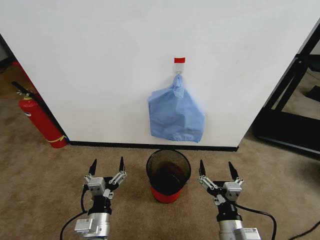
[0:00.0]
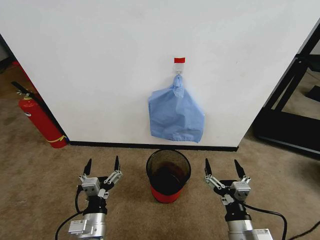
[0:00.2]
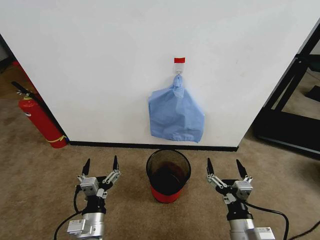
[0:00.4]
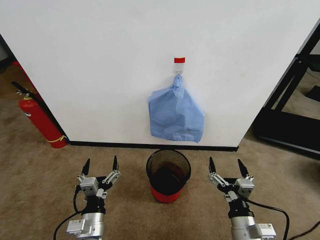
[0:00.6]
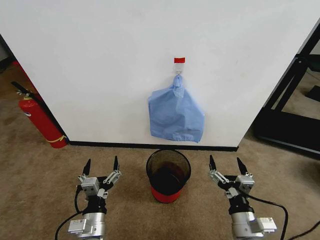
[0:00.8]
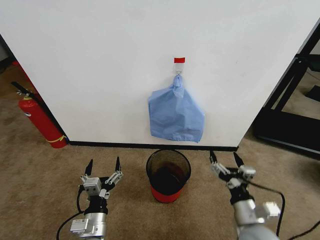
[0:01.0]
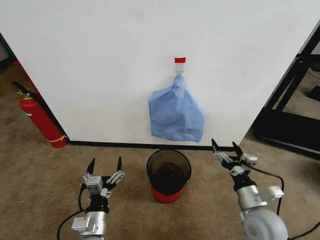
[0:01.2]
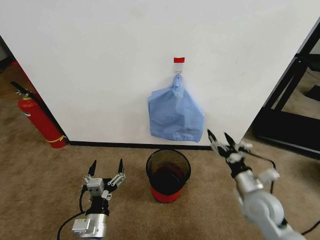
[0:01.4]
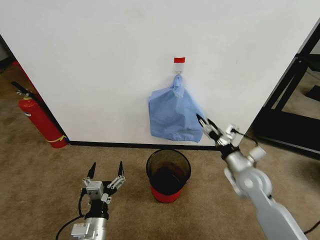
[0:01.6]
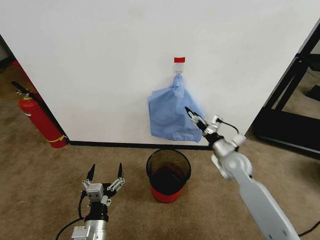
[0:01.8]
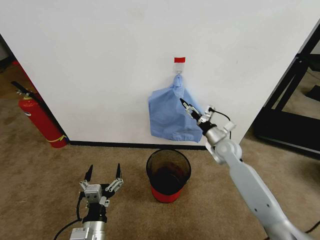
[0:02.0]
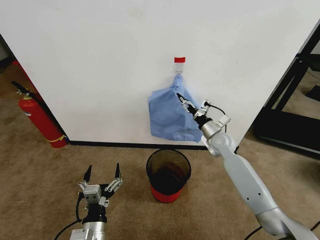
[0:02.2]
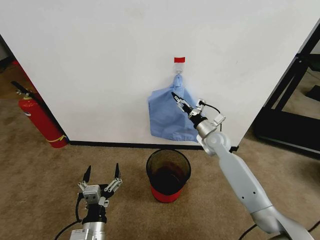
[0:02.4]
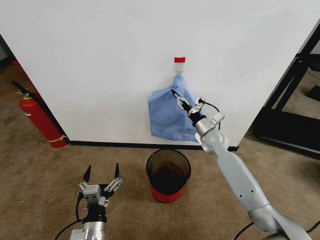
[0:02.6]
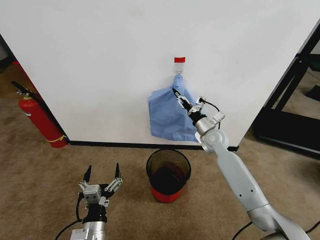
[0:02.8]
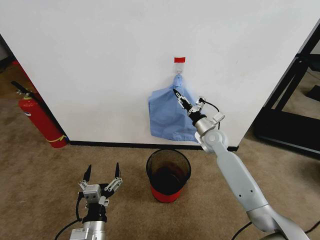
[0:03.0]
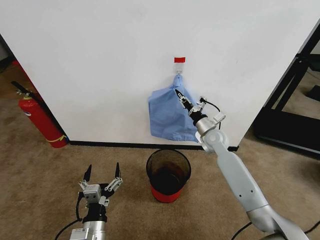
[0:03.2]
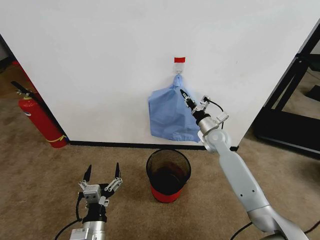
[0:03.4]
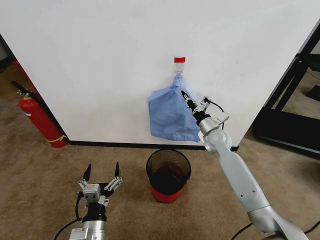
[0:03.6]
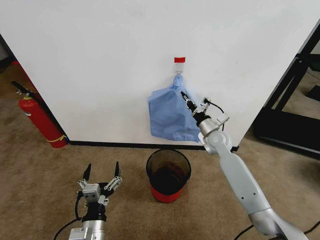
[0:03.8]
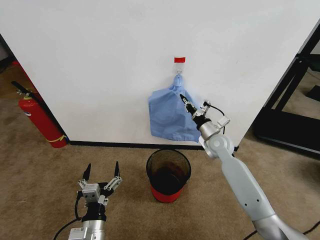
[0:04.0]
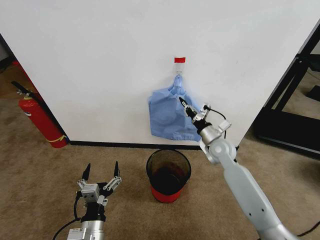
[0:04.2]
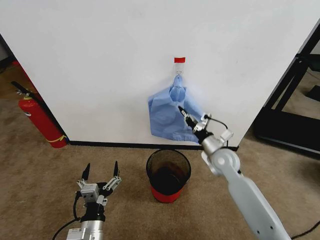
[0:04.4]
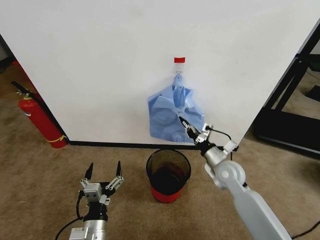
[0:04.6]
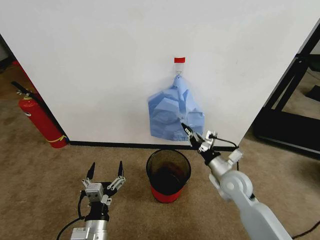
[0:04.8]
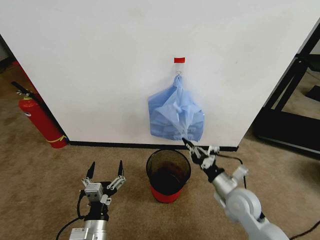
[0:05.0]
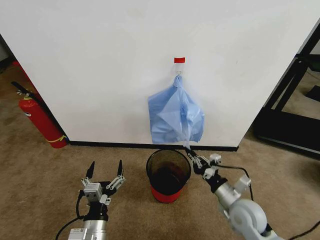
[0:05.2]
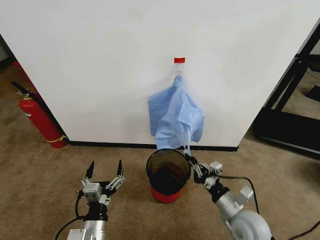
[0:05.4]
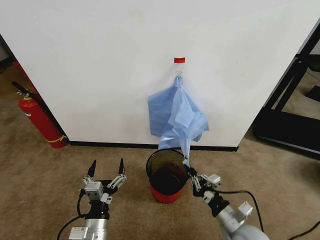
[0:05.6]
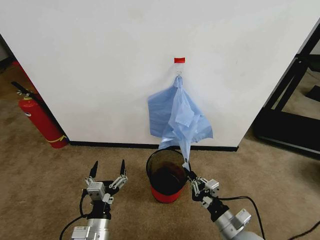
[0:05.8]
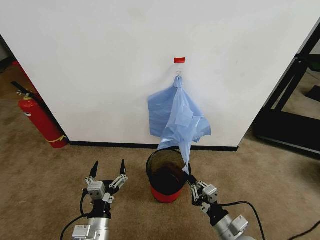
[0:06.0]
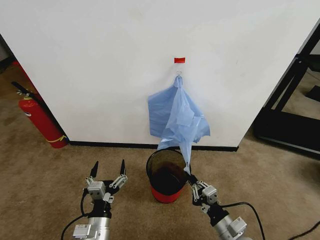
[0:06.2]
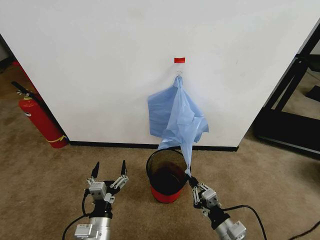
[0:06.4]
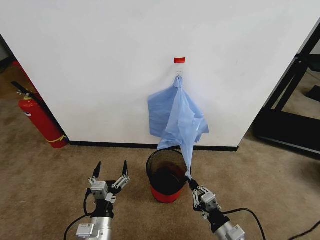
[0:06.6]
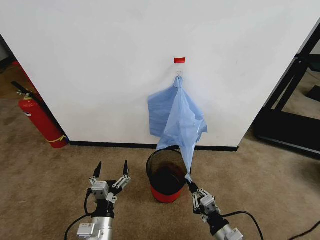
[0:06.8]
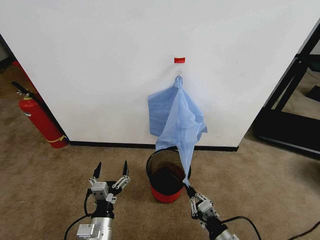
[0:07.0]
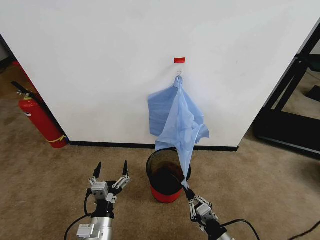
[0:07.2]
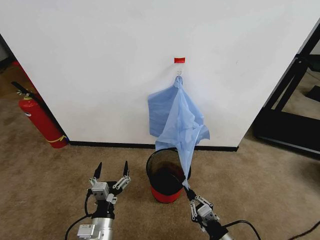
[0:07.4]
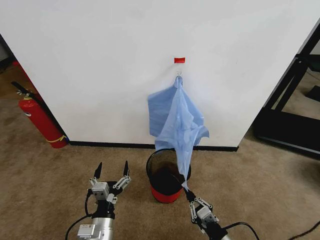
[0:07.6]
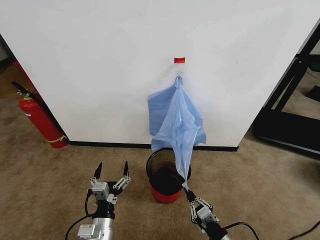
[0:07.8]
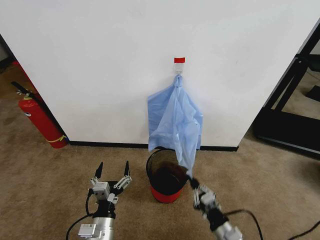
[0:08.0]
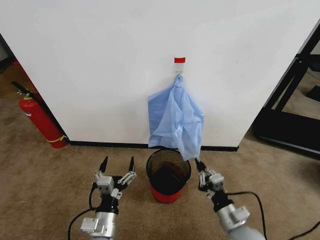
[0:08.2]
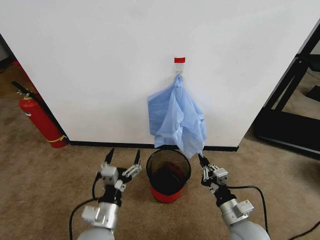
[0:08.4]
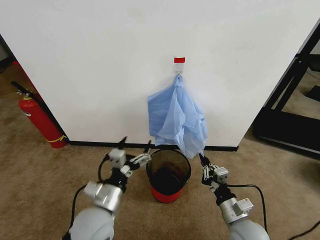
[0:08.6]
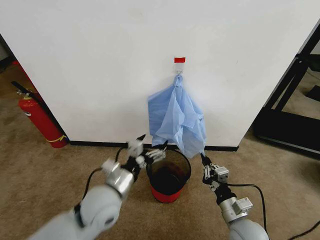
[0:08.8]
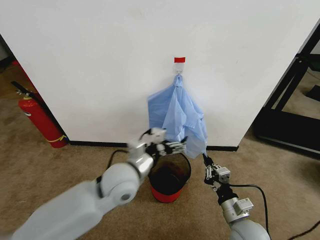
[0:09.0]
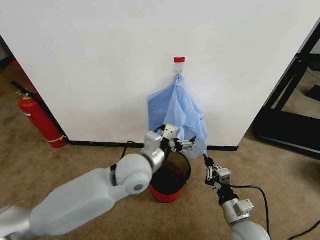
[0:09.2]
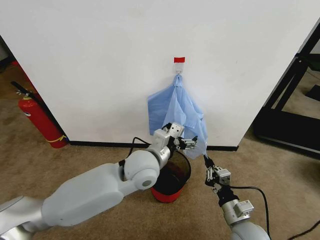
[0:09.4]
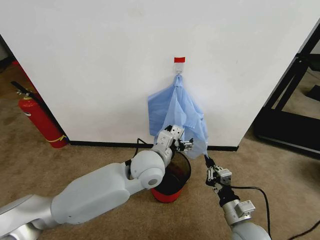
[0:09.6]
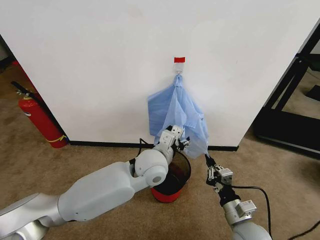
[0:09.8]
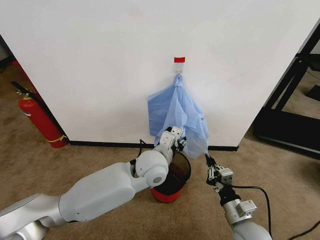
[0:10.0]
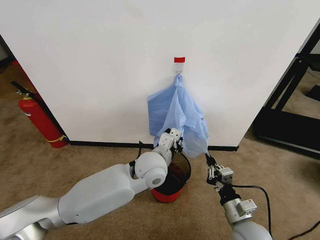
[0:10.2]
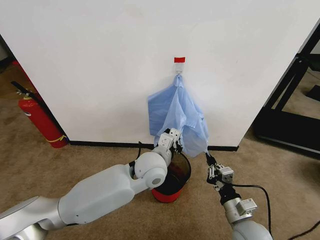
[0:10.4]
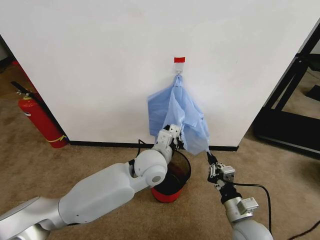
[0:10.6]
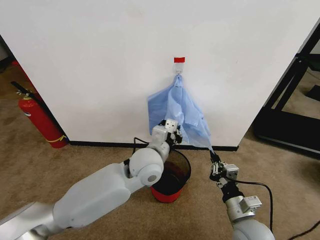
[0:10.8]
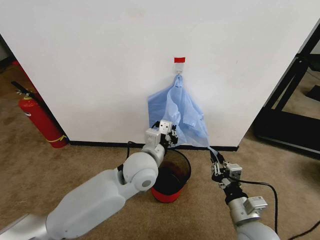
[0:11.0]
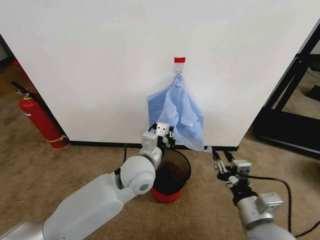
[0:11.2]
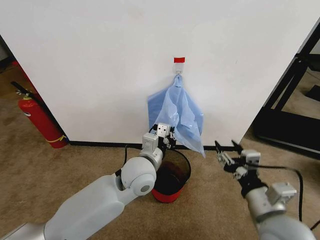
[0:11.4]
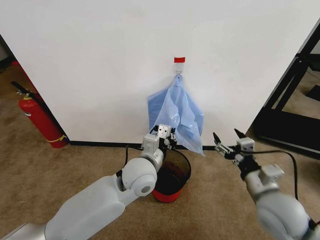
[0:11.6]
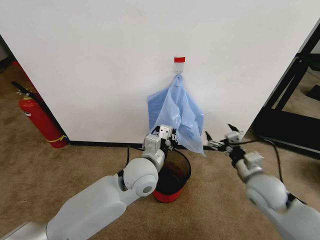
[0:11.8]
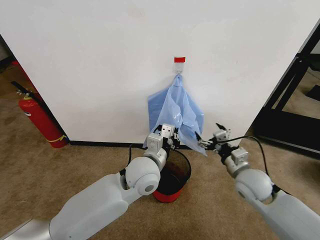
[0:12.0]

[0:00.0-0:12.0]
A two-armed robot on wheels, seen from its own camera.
Task of the whole recording: Pick up the garbage bag from the wall and place it over the trash bin.
0:01.6 to 0:03.0: The right gripper shifts roughly 20 cm forward and to the left, and closes its fingers.
0:03.0 to 0:04.4: The right gripper shifts roughly 10 cm backward, and closes its fingers.
0:04.4 to 0:06.0: The right gripper moves backward, some 25 cm.
0:06.0 to 0:07.6: The right gripper ends up approximately 5 cm from where it was.
0:07.6 to 0:09.0: The right gripper heads forward and upward, covering about 10 cm, while the left gripper is displaced upward and forward by some 20 cm.
0:09.0 to 0:10.4: The left gripper goes roughly 15 cm to the right and forward, and closes up.
0:10.4 to 0:12.0: The right gripper travels forward and upward by roughly 15 cm, and opens up.

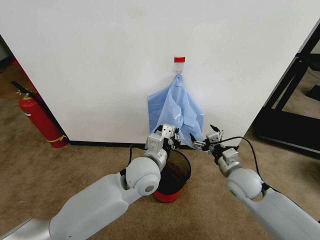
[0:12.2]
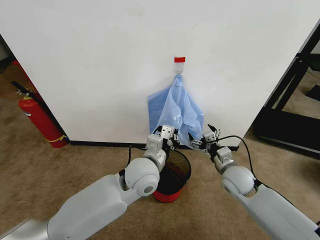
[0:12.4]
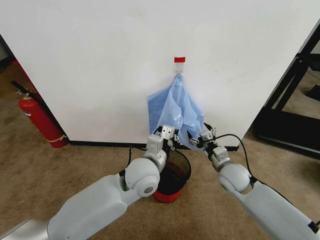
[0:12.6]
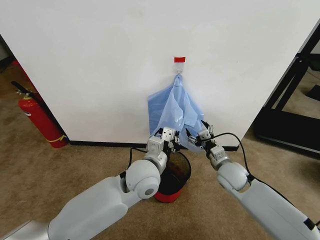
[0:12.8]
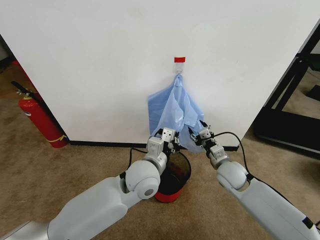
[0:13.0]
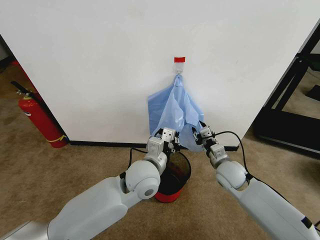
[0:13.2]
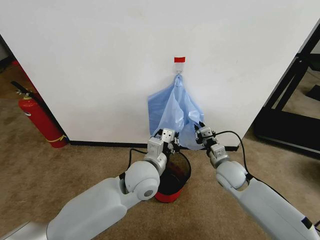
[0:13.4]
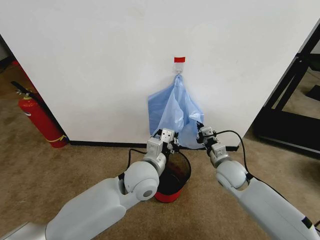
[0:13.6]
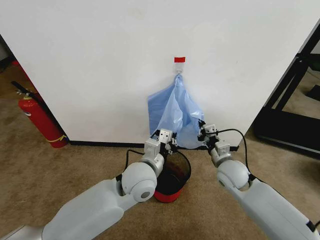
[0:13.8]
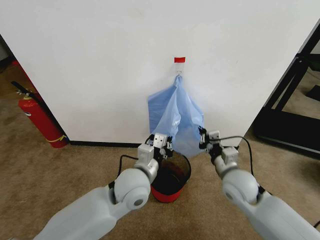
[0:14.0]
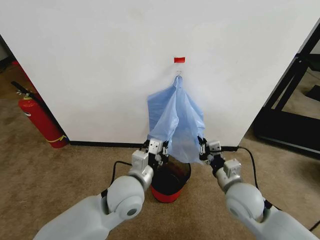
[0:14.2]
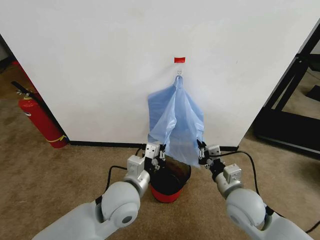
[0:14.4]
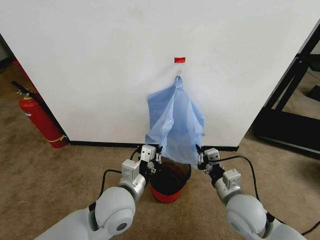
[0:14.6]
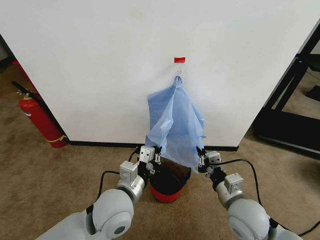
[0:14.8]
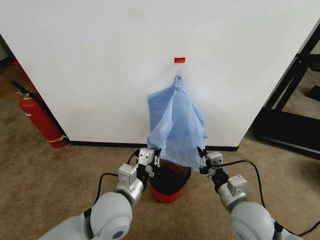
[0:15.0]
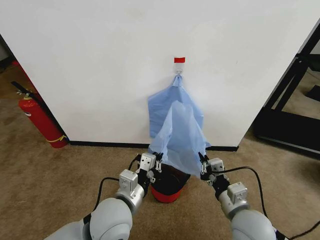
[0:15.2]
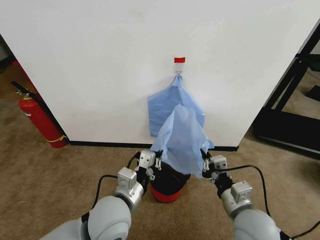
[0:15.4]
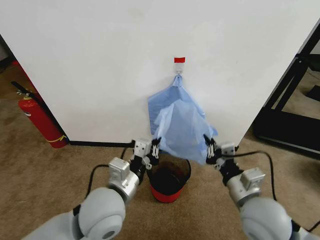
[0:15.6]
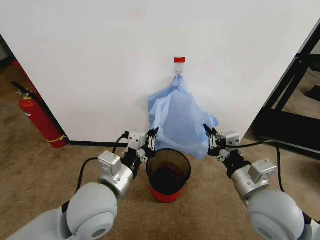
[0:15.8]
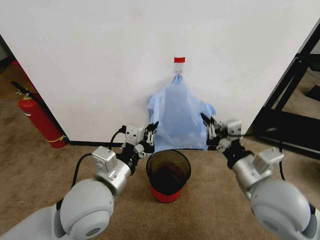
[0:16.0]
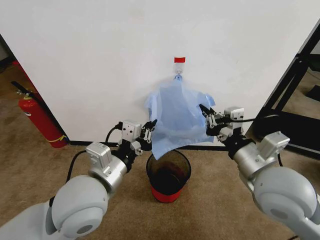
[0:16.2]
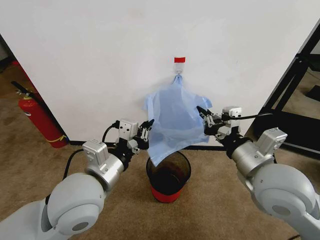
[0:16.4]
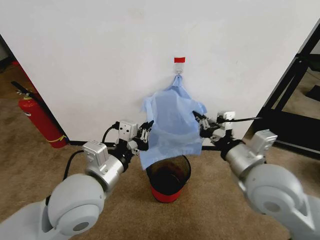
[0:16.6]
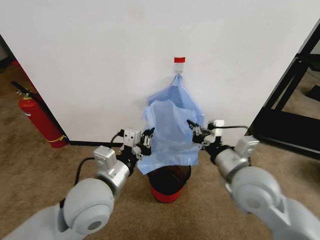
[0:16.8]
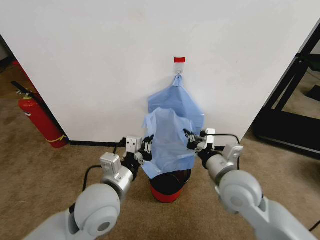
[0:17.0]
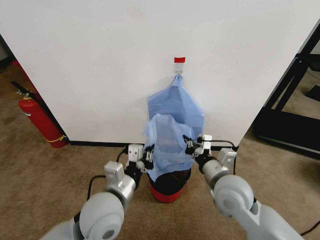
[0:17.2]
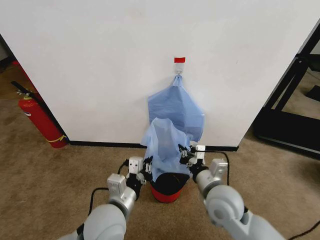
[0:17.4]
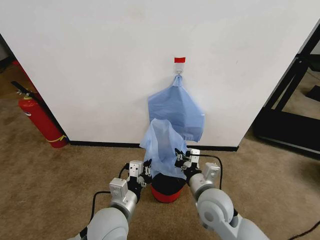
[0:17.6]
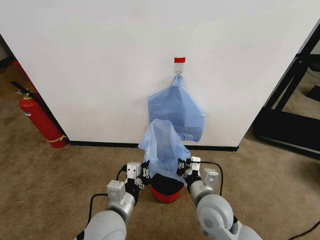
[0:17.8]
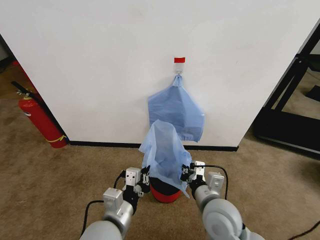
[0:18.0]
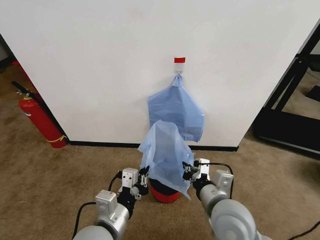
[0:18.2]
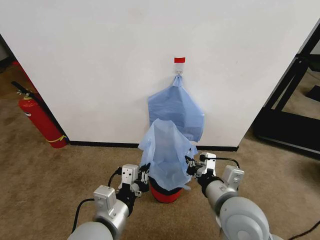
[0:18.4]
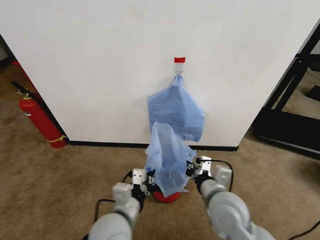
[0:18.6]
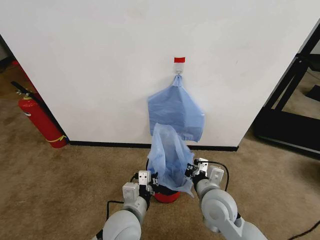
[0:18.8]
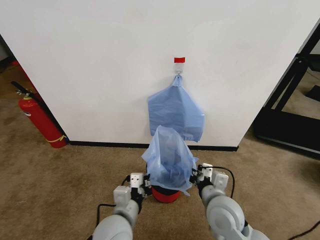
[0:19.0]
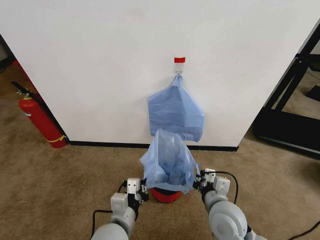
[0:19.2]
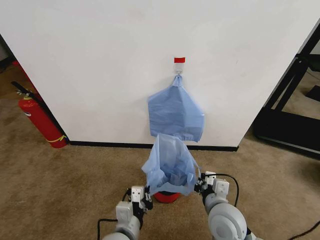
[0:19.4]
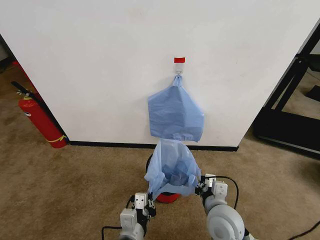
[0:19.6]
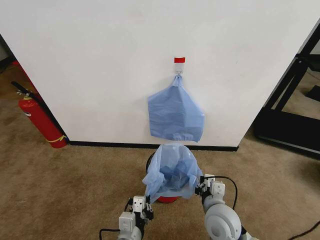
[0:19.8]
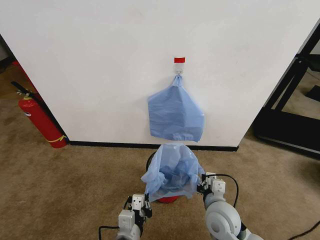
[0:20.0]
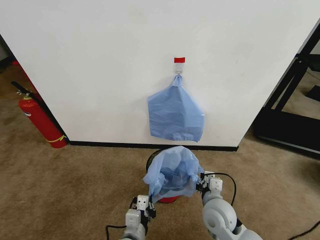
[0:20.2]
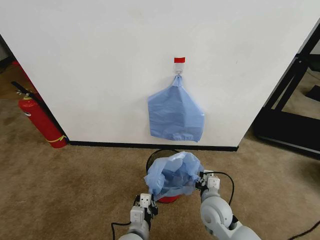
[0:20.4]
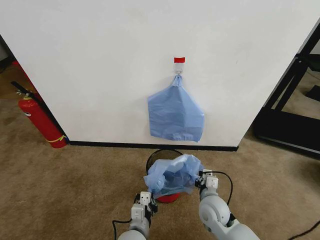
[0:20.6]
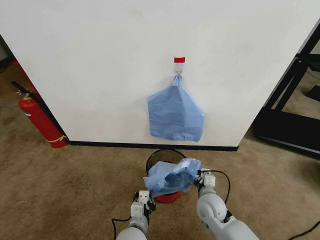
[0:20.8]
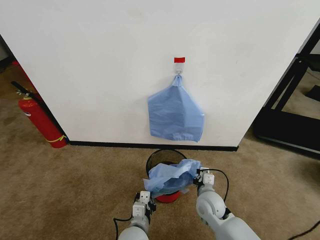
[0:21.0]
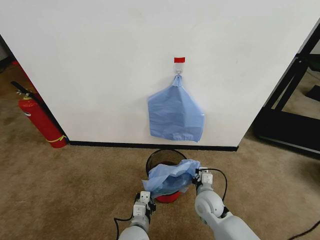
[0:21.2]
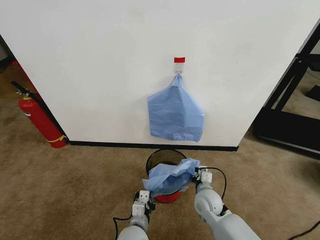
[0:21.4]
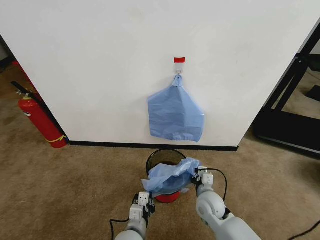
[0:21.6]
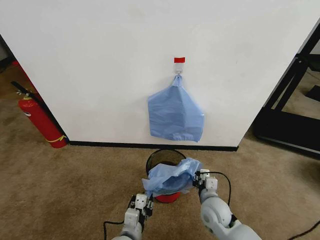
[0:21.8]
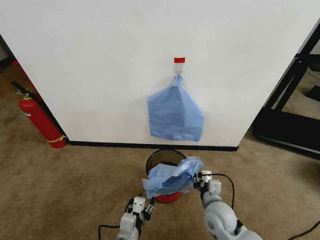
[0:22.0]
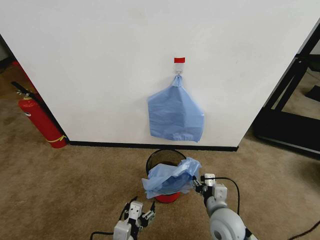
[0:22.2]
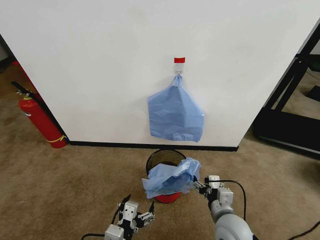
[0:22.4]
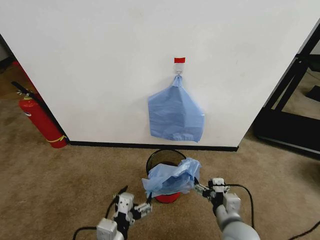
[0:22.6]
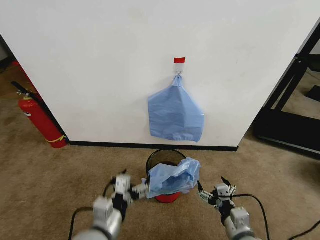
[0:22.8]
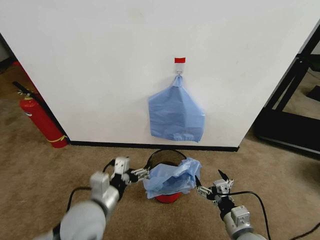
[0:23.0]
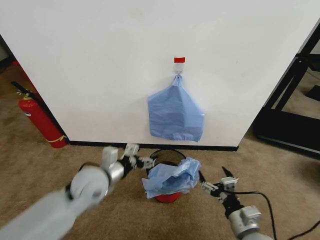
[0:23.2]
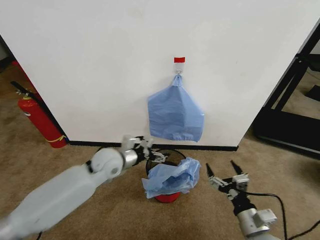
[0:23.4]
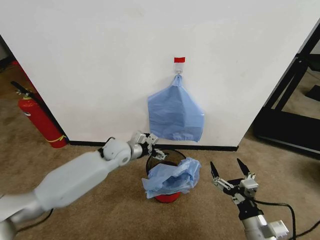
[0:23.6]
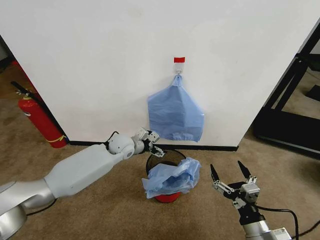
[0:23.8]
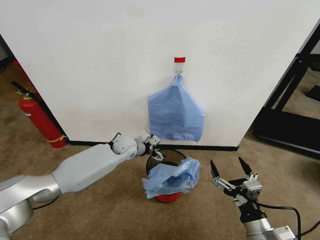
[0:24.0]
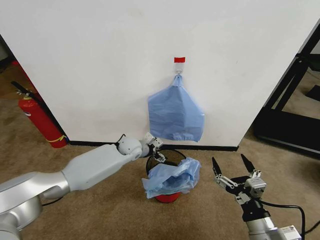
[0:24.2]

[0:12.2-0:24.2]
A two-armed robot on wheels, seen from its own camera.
Task of the whole recording: Pick up the garbage bag from the wall and place it over the trash bin.
0:12.2 to 0:13.8: The right gripper closes.
0:13.8 to 0:15.2: The right gripper is displaced backward by some 15 cm; the left gripper is displaced backward and to the left by some 10 cm.
0:15.2 to 0:16.6: Both grippers move upward, some 15 cm.
0:16.6 to 0:18.2: The left gripper moves downward and backward, roughly 10 cm, while the right gripper shifts roughly 10 cm downward and to the left.
0:18.2 to 0:19.8: The grippers both shift downward by about 10 cm.
0:19.8 to 0:21.2: Both grippers move downward and forward, some 10 cm.
0:21.2 to 0:22.6: The right gripper goes some 15 cm backward and upward, and opens its fingers. The left gripper shifts some 15 cm upward, backward and to the left, and opens up.
0:22.6 to 0:24.2: The right gripper heads backward and to the right, covering some 10 cm. Meanwhile the left gripper moves forward, roughly 40 cm.
